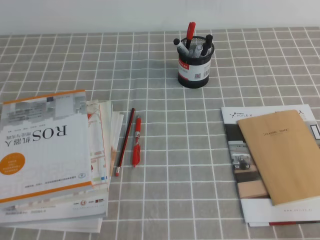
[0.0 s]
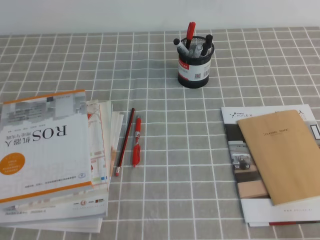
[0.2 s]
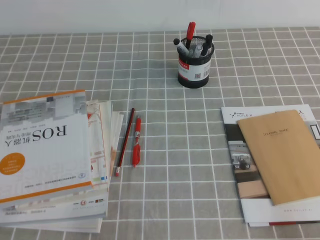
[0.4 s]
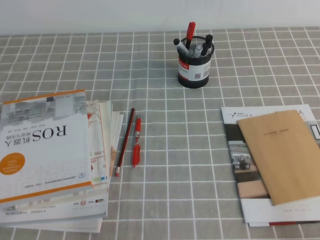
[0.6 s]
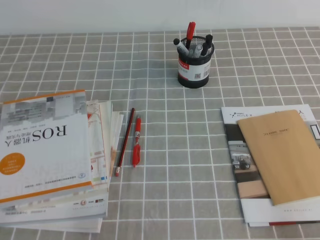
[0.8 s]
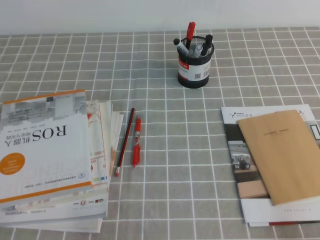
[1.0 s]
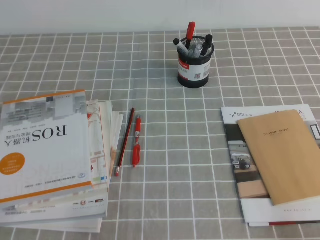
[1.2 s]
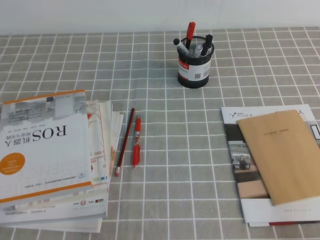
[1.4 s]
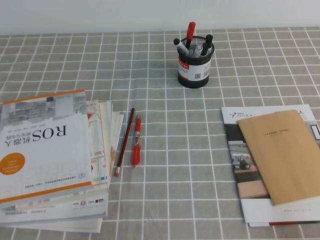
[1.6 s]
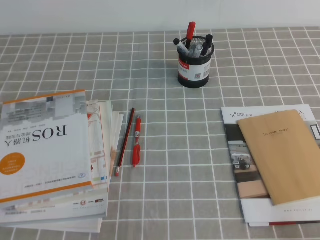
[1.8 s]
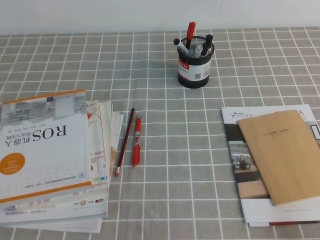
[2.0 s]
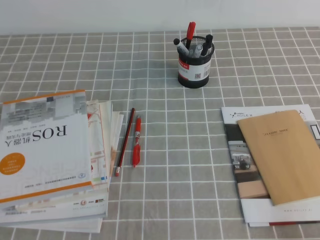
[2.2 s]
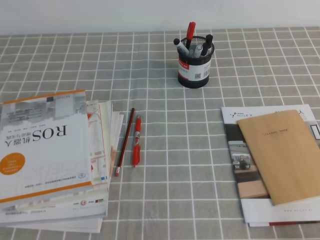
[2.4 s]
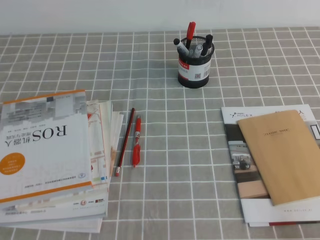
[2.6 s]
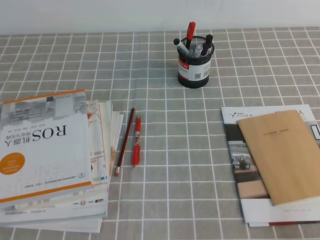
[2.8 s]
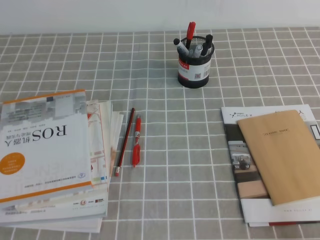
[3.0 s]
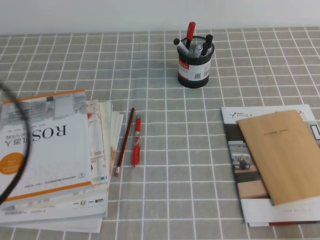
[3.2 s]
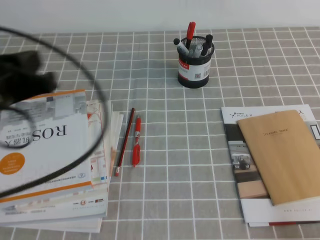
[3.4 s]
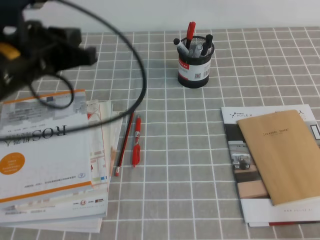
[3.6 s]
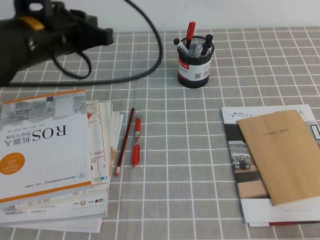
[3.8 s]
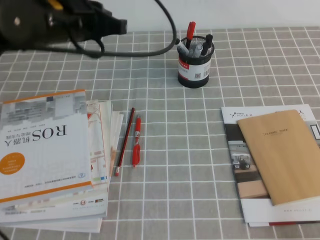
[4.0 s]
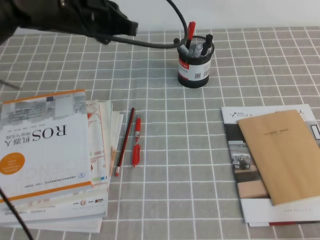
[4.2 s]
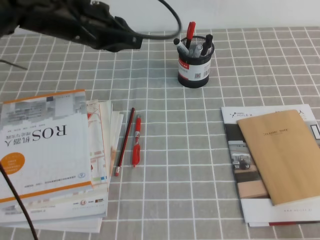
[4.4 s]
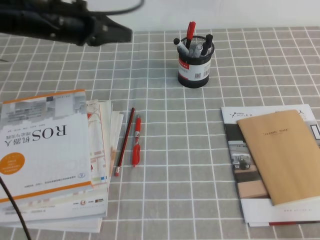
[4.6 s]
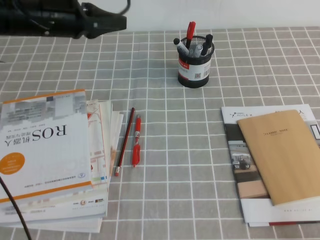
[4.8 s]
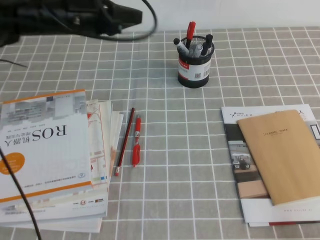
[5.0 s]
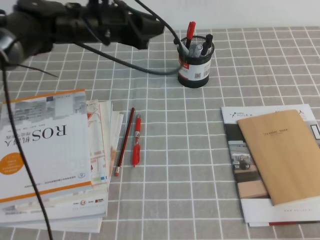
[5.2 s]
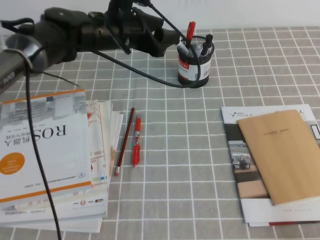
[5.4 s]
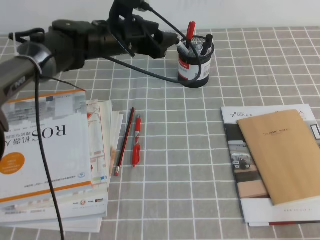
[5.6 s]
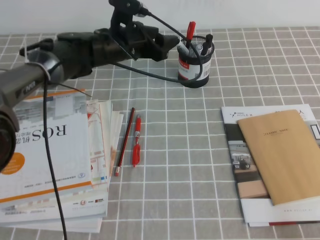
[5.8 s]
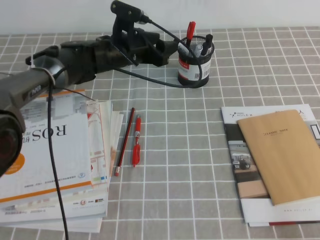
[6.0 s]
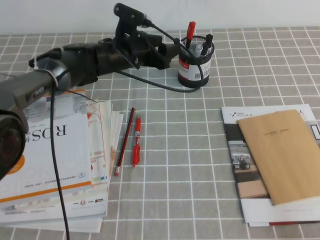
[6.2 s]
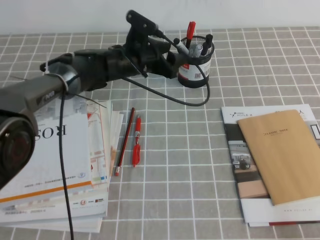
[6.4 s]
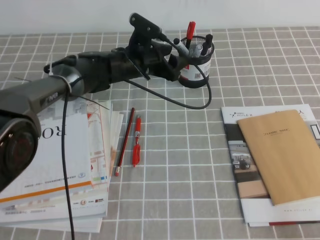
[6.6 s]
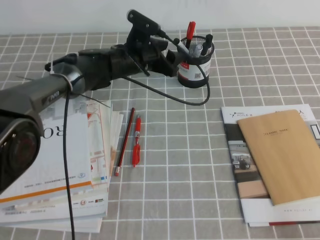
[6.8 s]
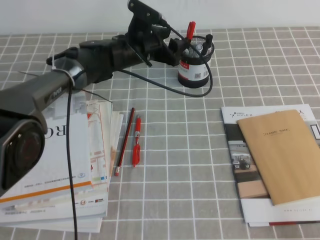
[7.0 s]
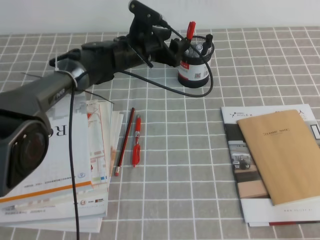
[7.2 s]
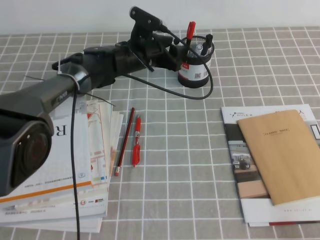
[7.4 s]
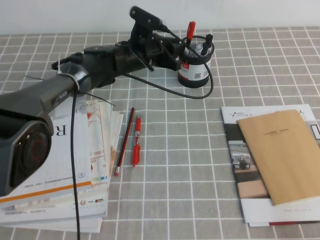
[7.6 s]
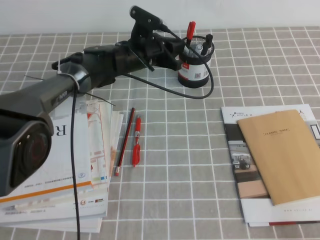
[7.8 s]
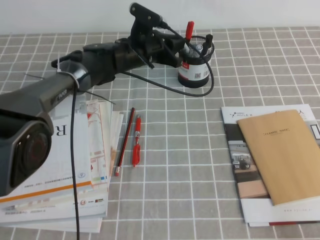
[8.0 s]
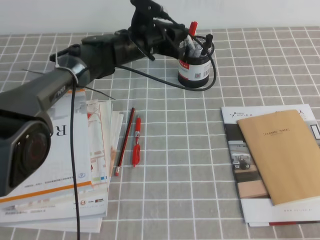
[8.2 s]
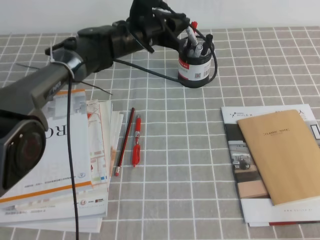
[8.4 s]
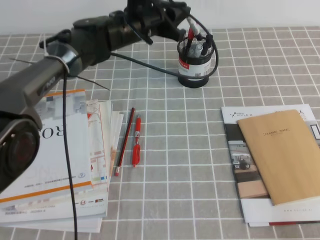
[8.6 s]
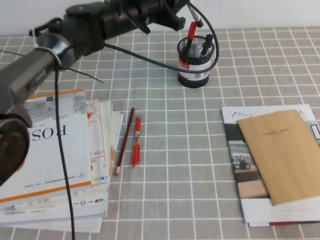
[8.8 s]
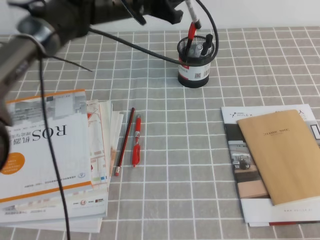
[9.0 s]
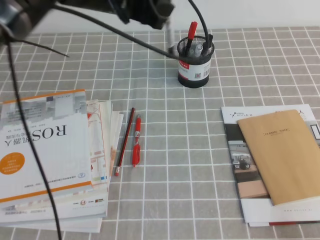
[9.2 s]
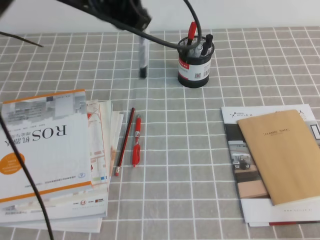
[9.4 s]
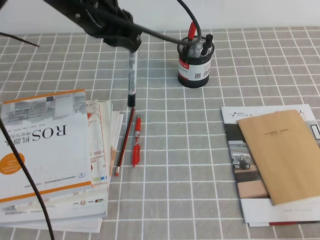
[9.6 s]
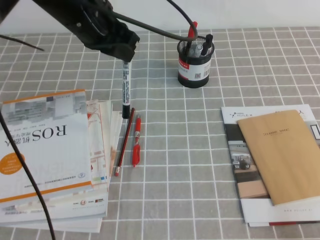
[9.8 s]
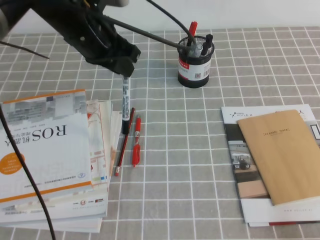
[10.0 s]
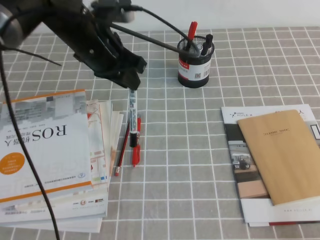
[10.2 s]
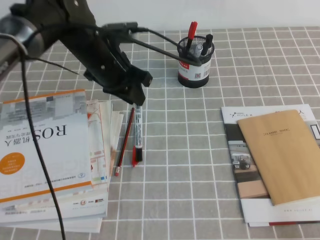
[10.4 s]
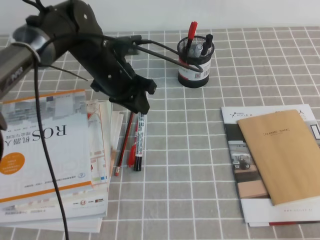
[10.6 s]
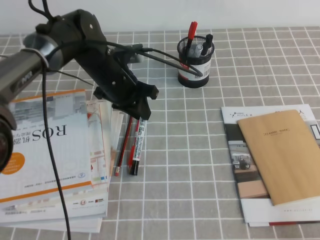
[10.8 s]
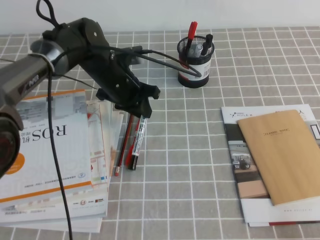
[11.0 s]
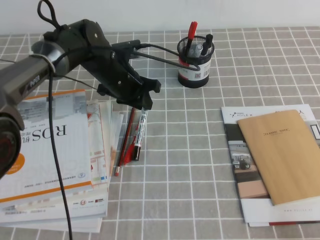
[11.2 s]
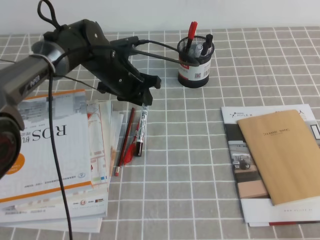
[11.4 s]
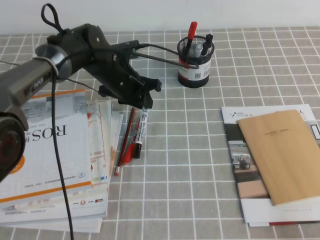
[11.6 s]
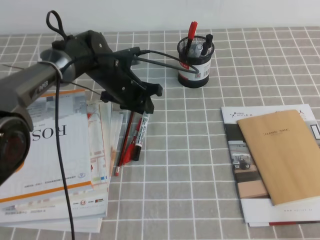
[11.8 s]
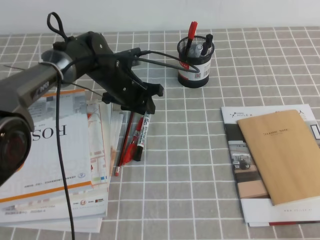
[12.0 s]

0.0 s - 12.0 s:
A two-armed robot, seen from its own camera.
0.0 s - 1.6 s: The two grippers keep their place.
3.0 s - 4.4 s: The left gripper shifts roughly 35 cm forward and to the right.
4.4 s - 6.0 s: The left gripper heads downward, forward and to the right, covering some 15 cm, and opens its fingers.
6.0 s - 7.6 s: The left gripper closes up.
7.6 s - 9.0 s: The left gripper goes some 15 cm upward.
9.0 s - 10.4 s: The left gripper heads backward and to the left, covering about 10 cm.
10.4 s - 12.0 s: The left gripper shifts some 10 cm downward.

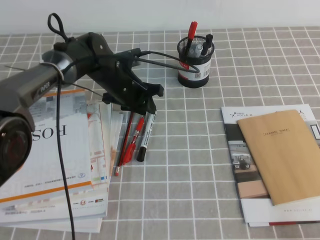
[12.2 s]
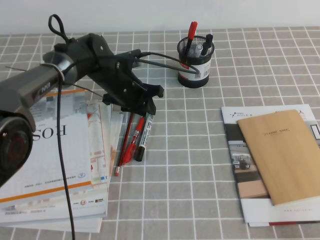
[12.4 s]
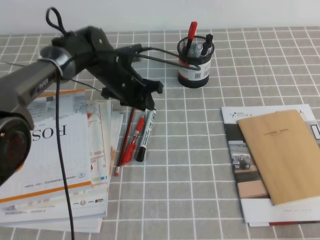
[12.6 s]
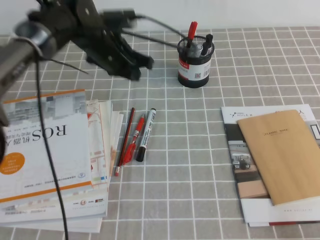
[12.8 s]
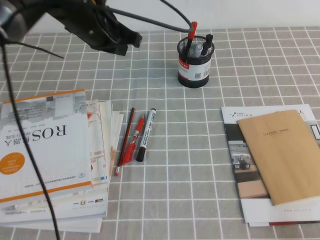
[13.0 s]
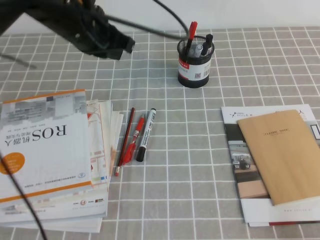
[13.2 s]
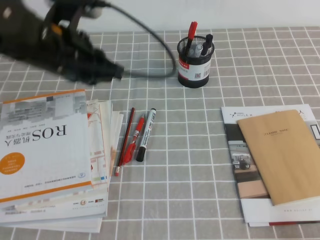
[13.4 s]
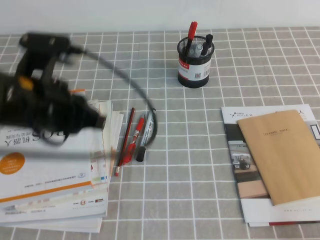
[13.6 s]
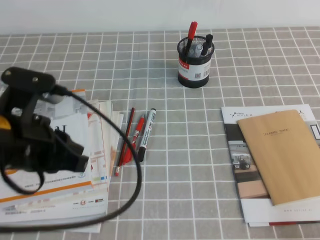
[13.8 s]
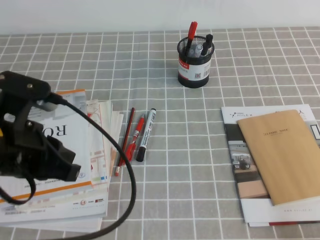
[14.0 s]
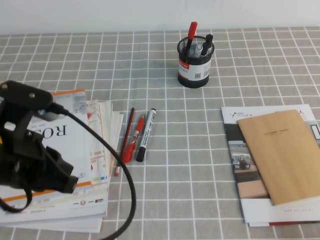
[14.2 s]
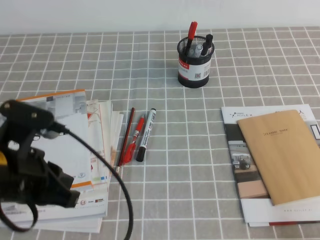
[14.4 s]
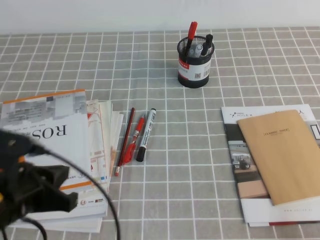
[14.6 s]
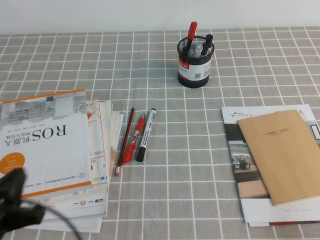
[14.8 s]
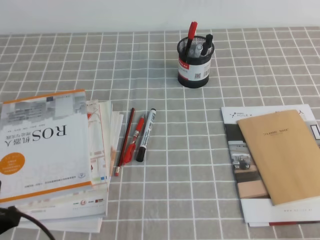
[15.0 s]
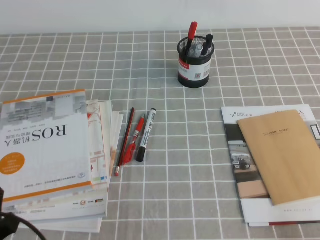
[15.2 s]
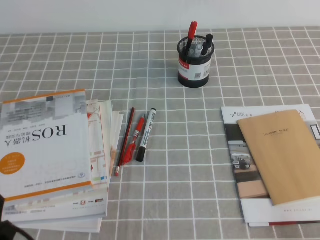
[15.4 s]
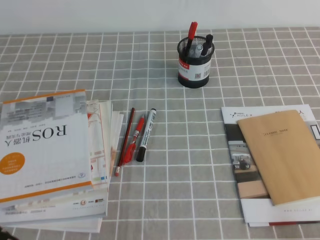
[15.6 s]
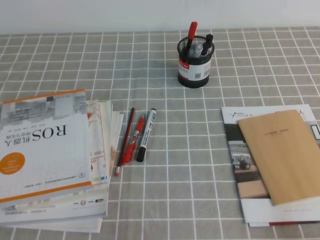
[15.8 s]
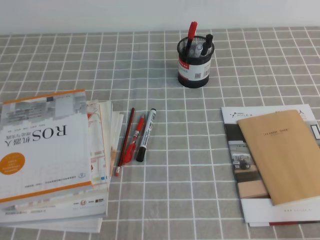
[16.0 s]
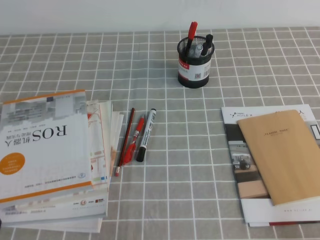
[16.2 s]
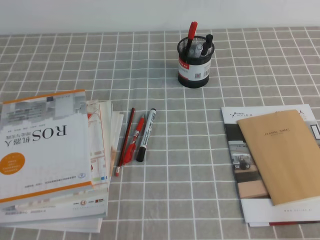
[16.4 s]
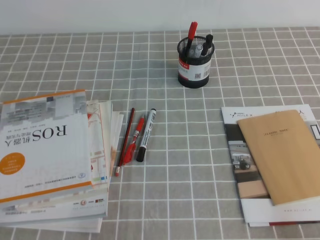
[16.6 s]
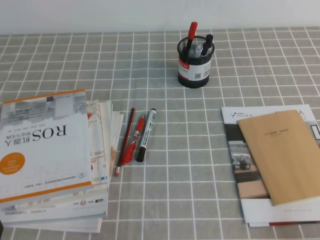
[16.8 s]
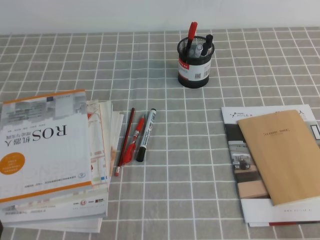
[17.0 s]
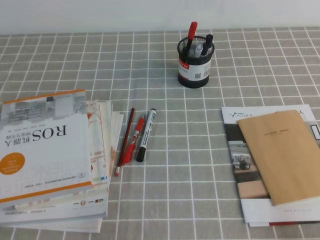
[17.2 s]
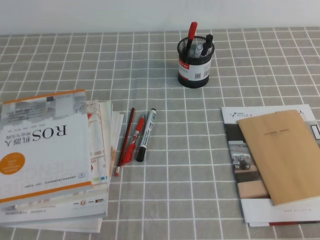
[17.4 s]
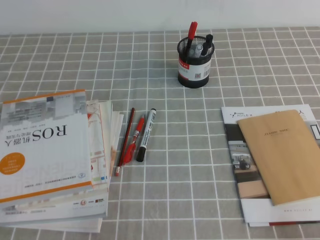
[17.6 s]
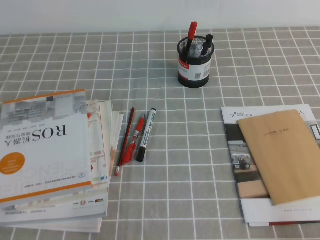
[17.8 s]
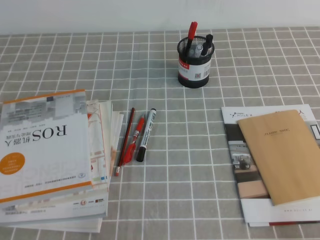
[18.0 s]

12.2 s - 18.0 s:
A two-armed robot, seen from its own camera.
Step, 12.2 s - 18.0 s: Pick up the pen from the pen holder.
12.2 s - 13.6 s: The left gripper shifts some 25 cm backward, upward and to the left, and closes up.
13.6 s - 15.0 s: The left gripper shifts approximately 20 cm backward, downward and to the left.
15.0 s - 16.6 s: The left gripper goes some 5 cm backward.
16.6 s - 18.0 s: Neither gripper changes place.

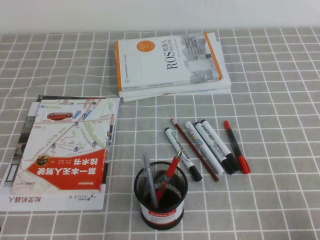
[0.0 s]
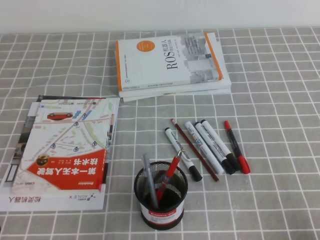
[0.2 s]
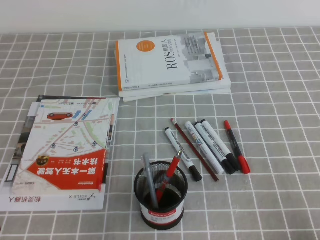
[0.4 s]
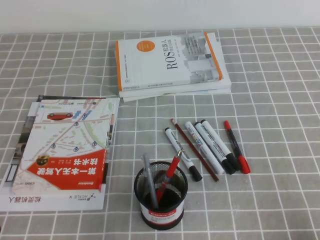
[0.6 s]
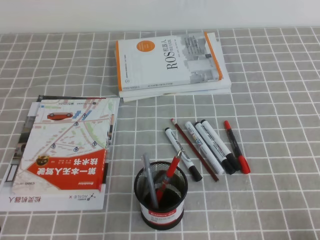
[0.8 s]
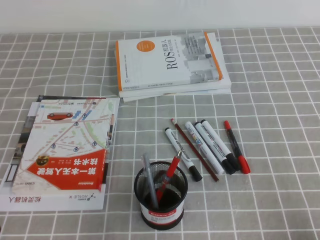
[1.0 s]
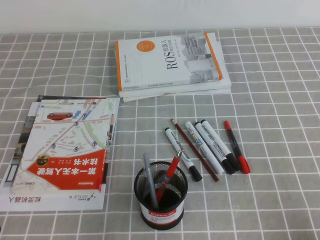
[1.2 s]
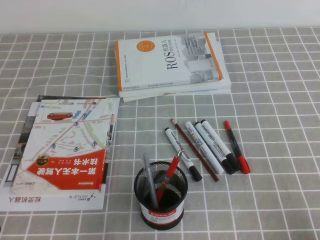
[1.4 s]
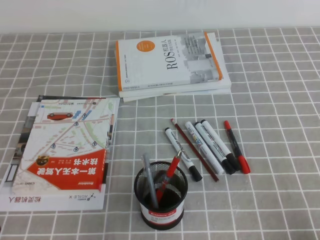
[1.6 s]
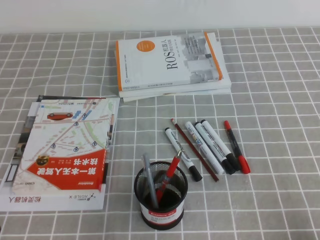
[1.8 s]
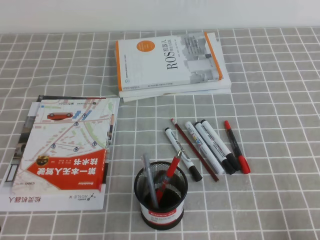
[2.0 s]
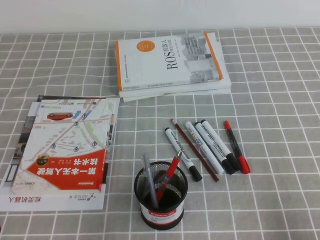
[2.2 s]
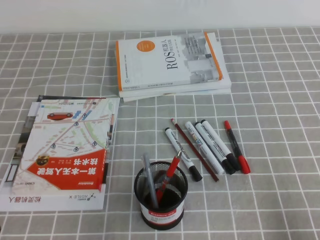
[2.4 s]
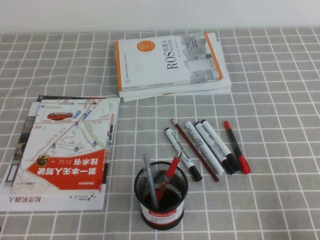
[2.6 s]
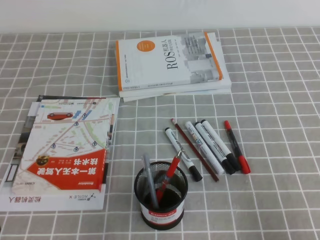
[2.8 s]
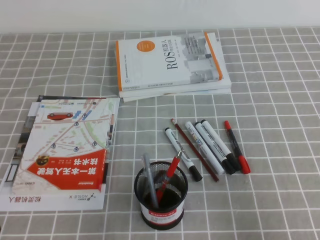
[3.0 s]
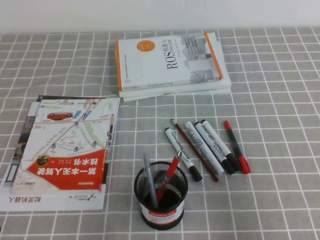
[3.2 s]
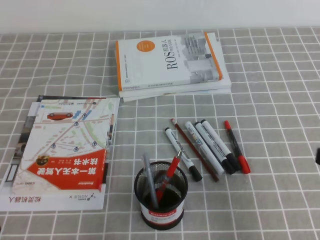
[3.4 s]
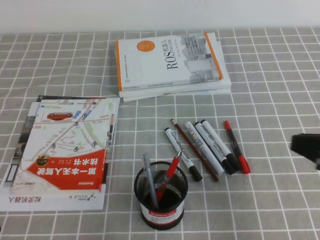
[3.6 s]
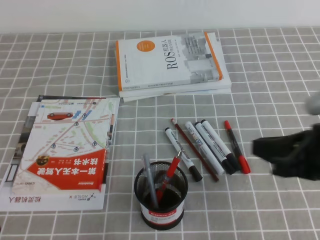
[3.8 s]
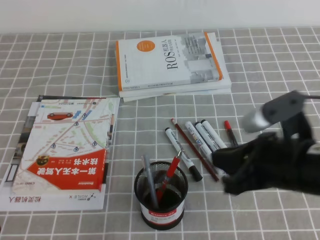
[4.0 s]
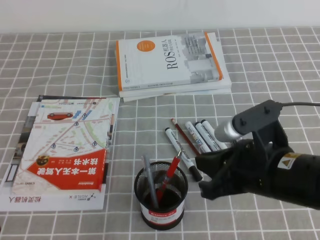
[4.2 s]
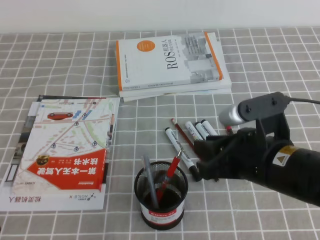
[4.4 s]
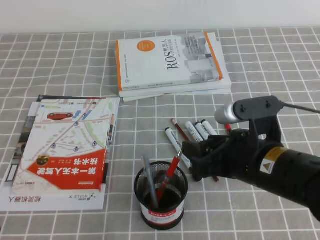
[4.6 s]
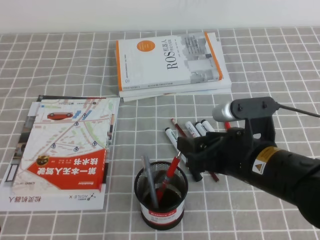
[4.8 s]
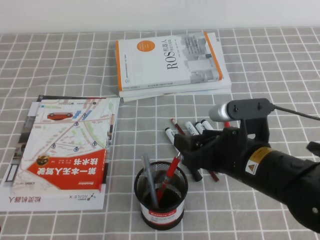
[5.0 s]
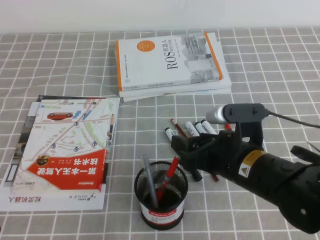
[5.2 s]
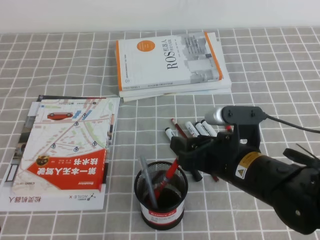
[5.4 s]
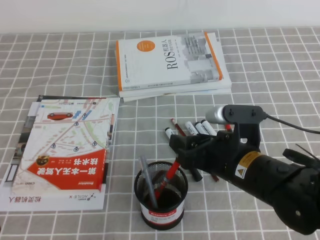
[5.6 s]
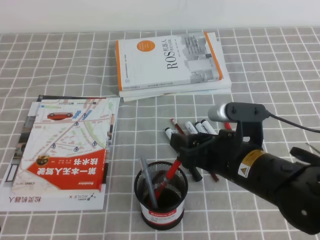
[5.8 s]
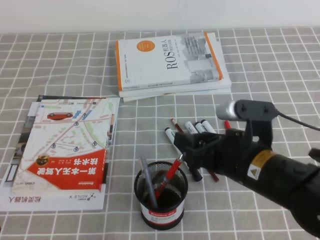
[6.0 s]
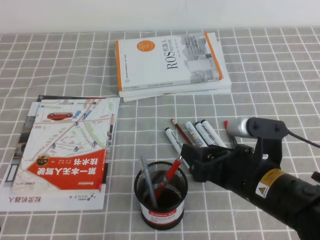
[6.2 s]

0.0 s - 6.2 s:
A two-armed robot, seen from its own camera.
0.0 s - 1.6 s: Both grippers stay put.
1.6 s - 3.2 s: The right gripper moves upward, about 10 cm.
3.2 s - 4.6 s: The right gripper heads to the left and forward, covering roughly 20 cm, and opens its fingers.
4.6 s - 6.2 s: The grippers stay close to where they were, moving slightly.
